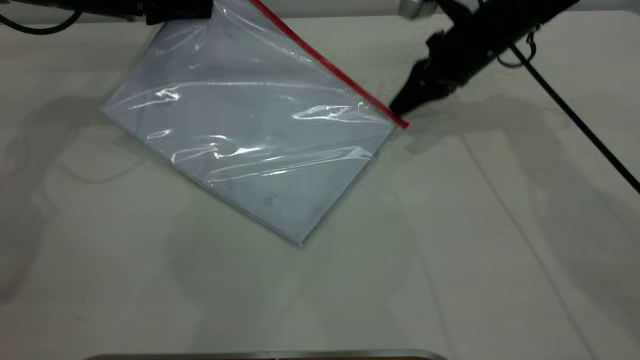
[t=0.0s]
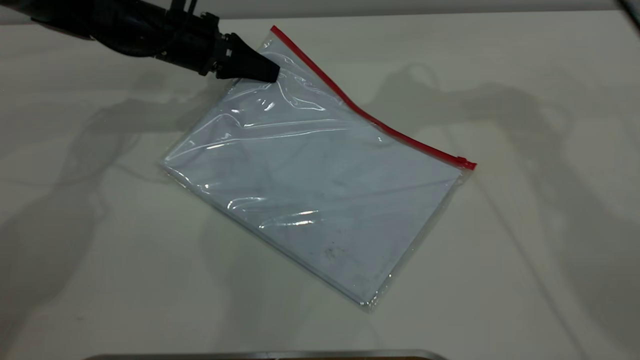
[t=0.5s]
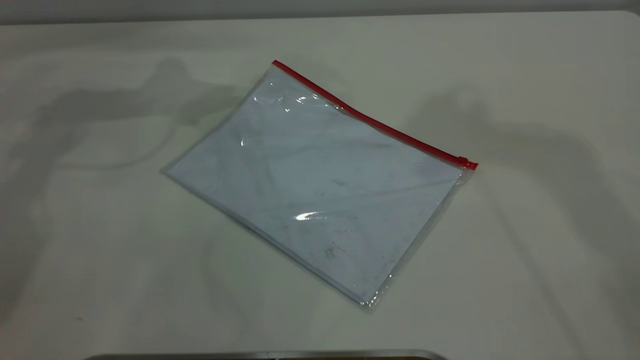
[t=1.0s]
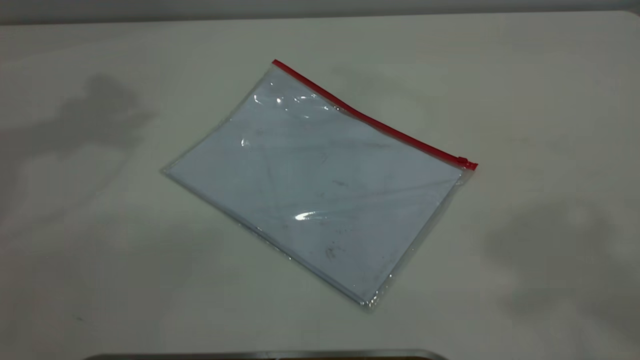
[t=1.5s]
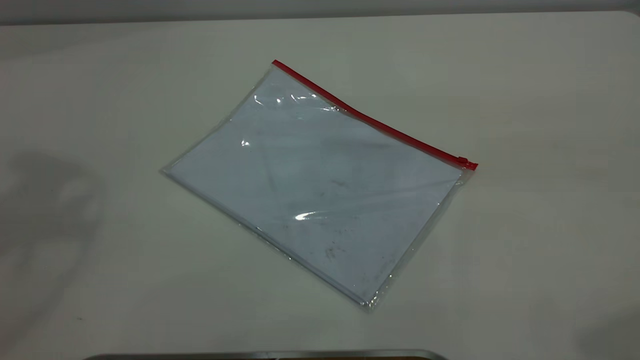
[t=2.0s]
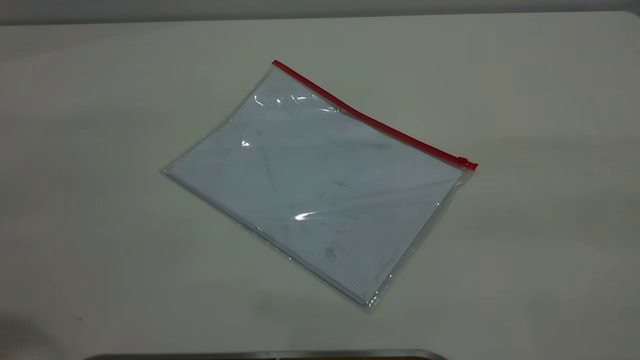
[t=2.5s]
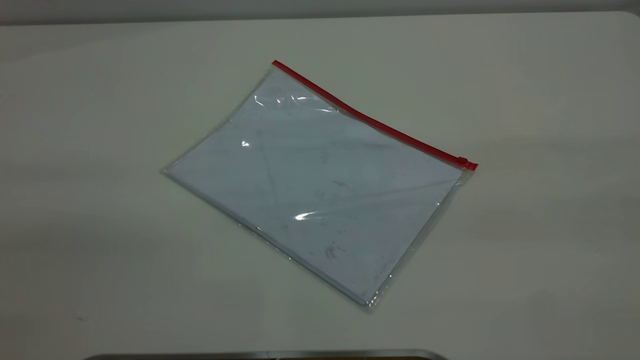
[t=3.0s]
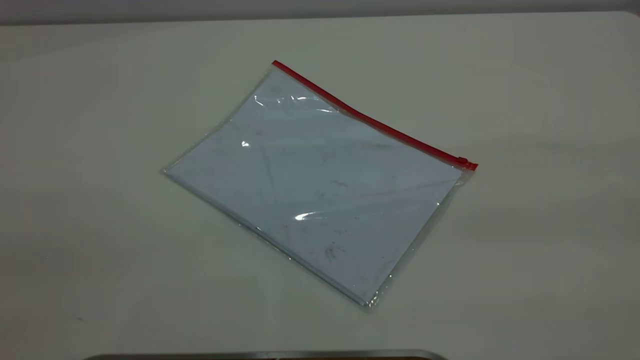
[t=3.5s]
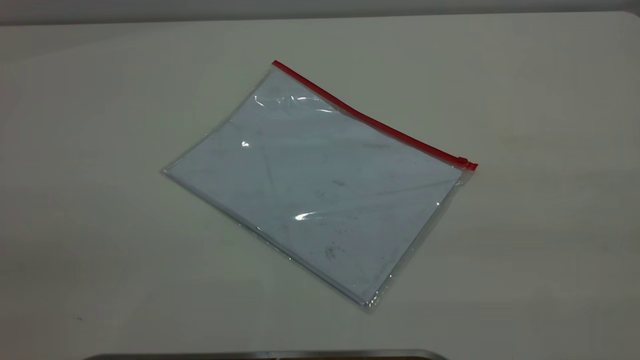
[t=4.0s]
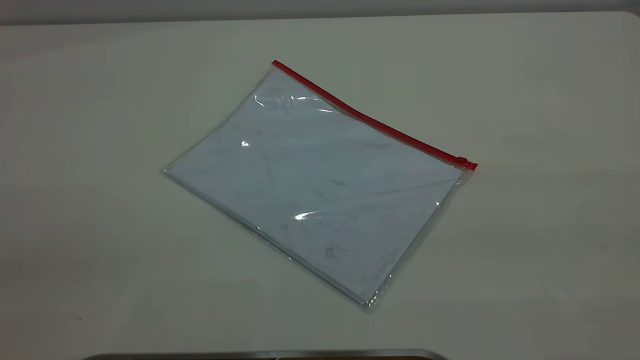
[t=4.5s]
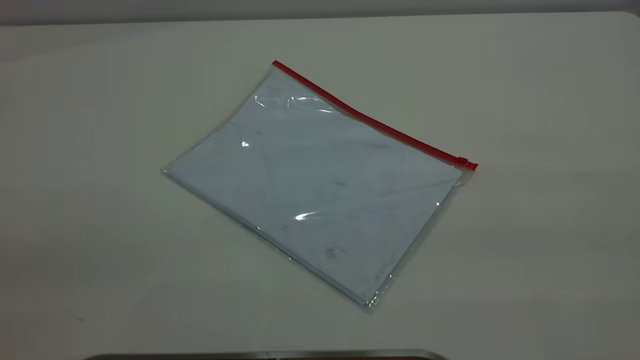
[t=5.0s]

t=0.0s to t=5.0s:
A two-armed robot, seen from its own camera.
t=0.0s to t=2.5s: The two grippers go about 50 cm backward and upward. The left gripper opens its fingers. Meanwhile the right gripper opens up.
